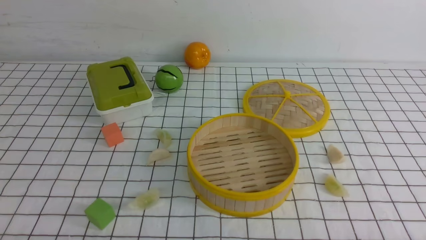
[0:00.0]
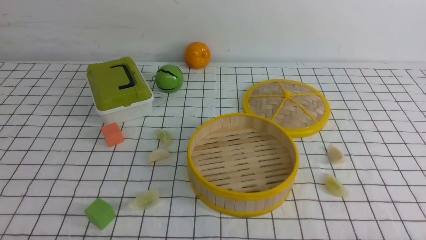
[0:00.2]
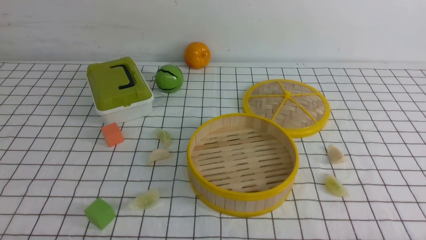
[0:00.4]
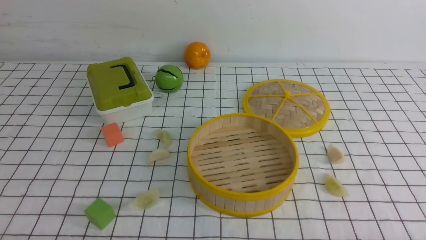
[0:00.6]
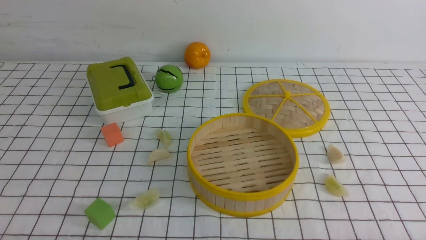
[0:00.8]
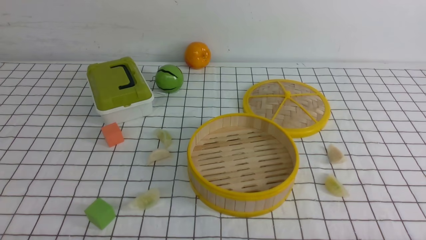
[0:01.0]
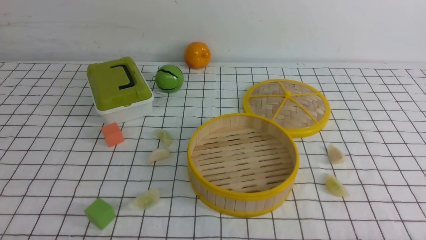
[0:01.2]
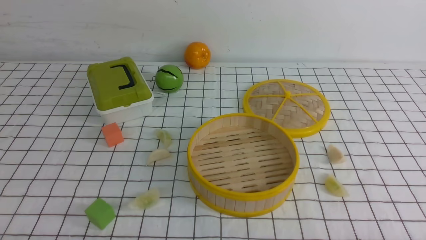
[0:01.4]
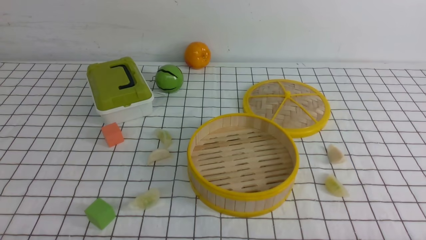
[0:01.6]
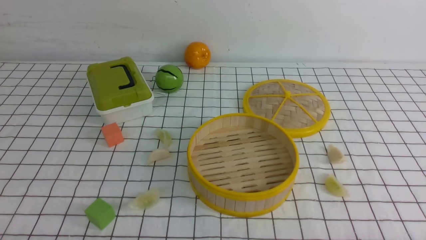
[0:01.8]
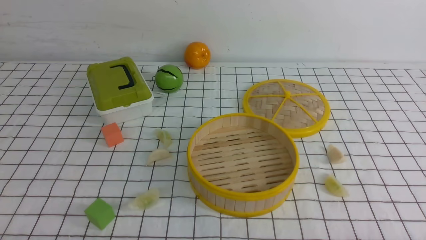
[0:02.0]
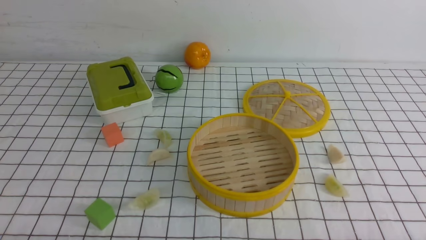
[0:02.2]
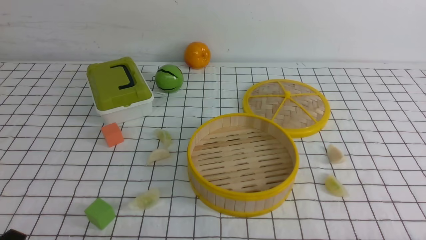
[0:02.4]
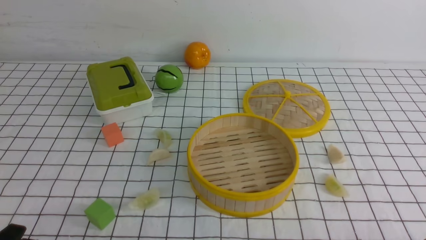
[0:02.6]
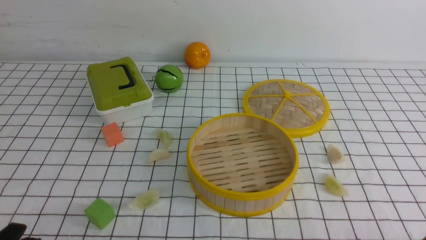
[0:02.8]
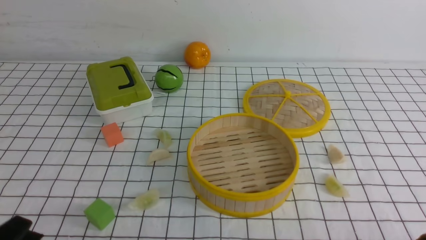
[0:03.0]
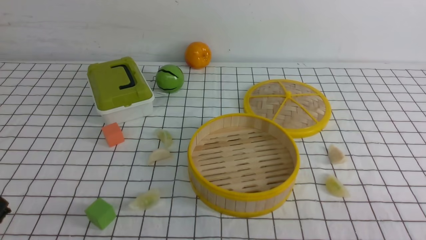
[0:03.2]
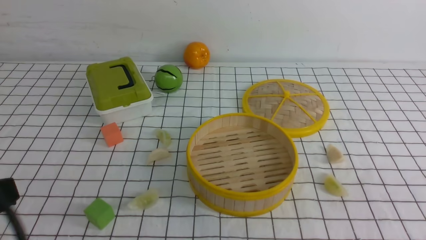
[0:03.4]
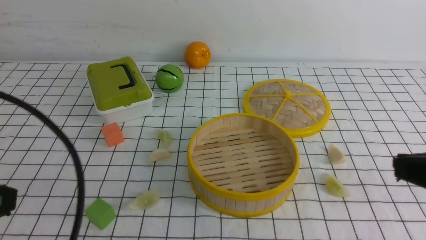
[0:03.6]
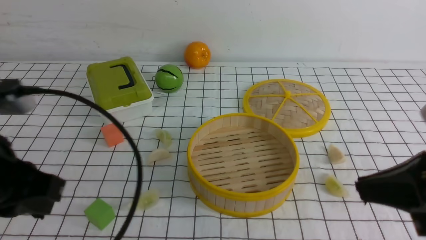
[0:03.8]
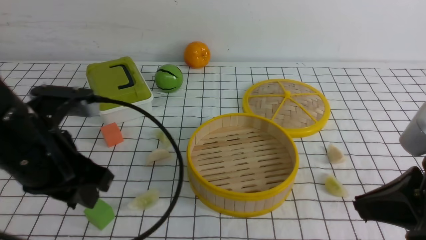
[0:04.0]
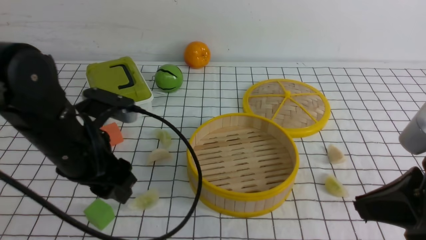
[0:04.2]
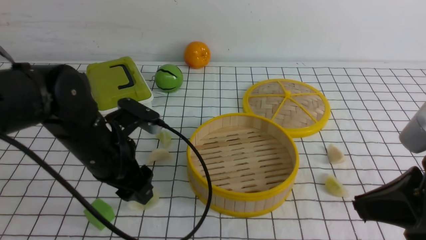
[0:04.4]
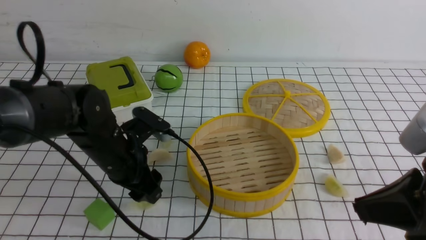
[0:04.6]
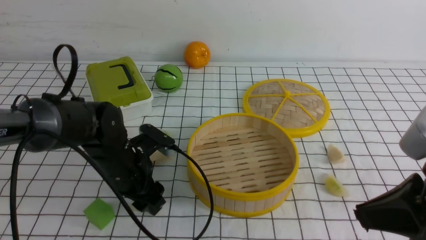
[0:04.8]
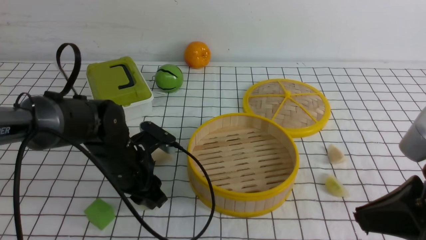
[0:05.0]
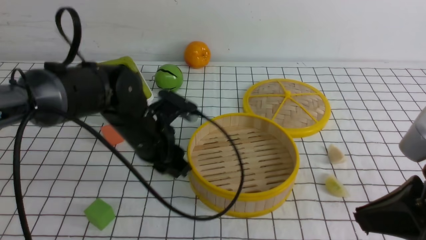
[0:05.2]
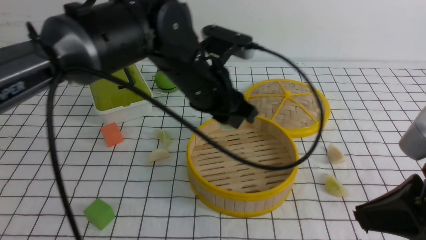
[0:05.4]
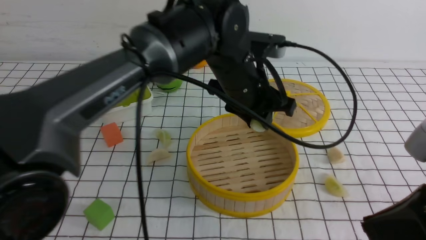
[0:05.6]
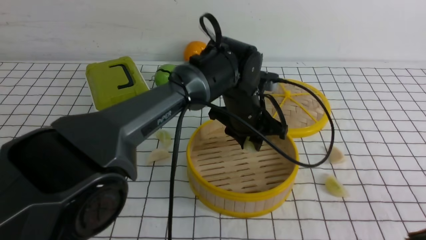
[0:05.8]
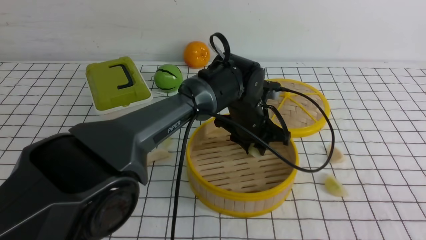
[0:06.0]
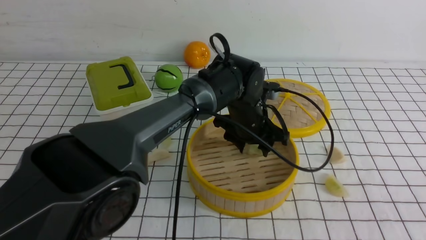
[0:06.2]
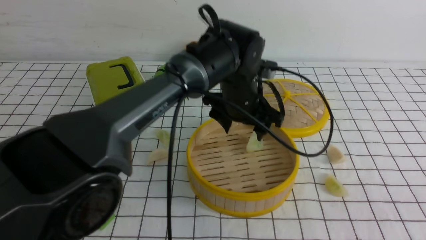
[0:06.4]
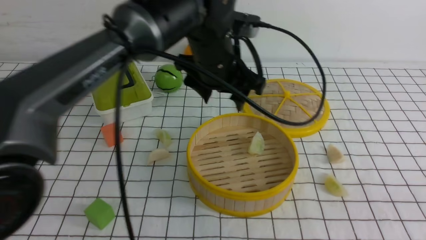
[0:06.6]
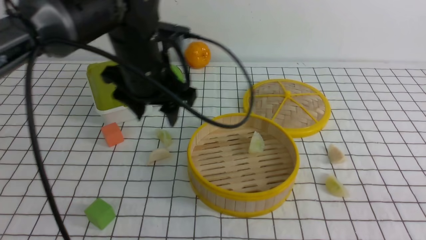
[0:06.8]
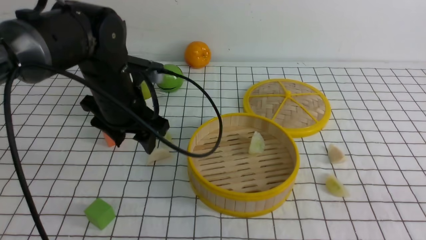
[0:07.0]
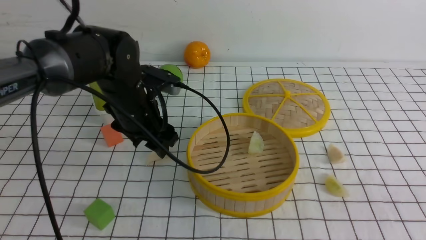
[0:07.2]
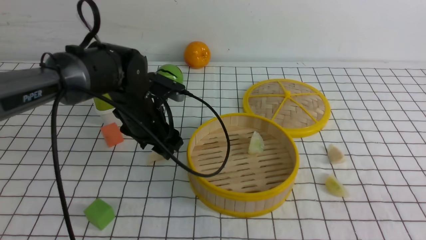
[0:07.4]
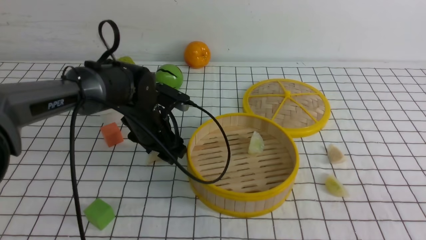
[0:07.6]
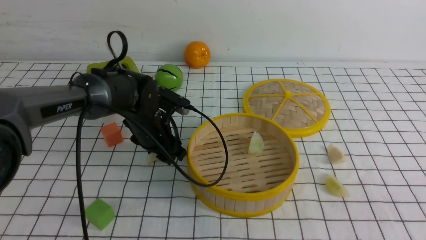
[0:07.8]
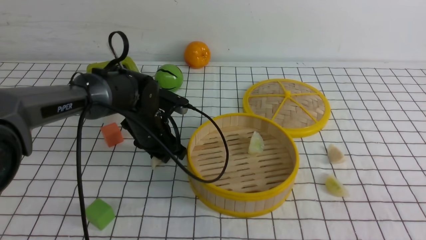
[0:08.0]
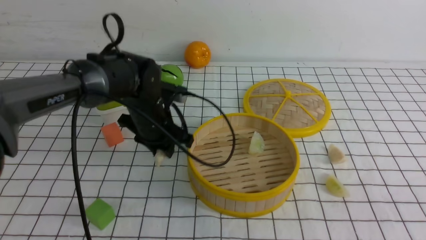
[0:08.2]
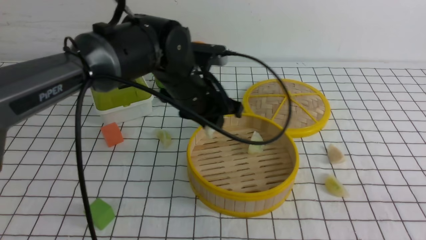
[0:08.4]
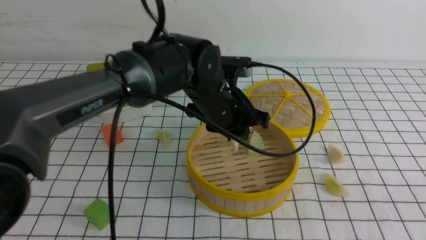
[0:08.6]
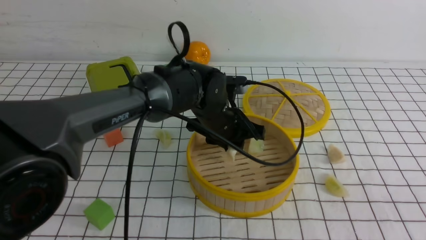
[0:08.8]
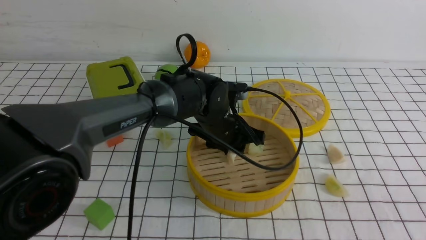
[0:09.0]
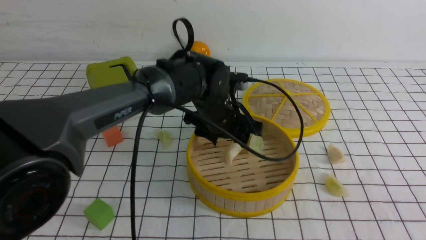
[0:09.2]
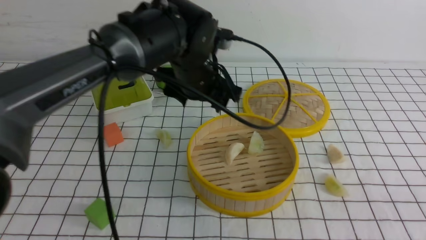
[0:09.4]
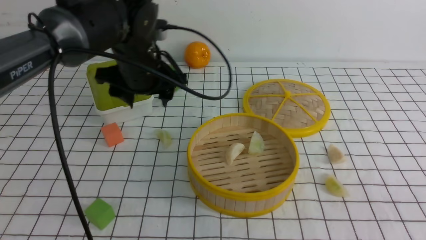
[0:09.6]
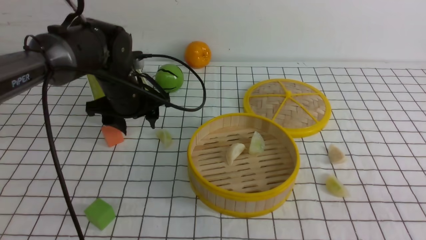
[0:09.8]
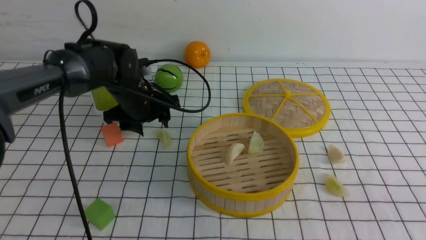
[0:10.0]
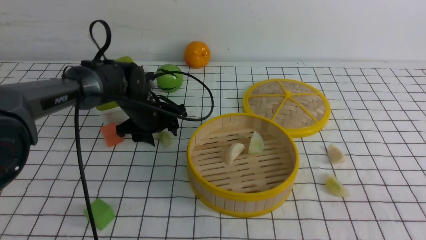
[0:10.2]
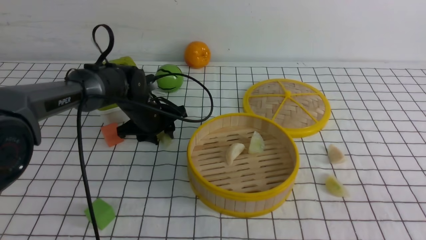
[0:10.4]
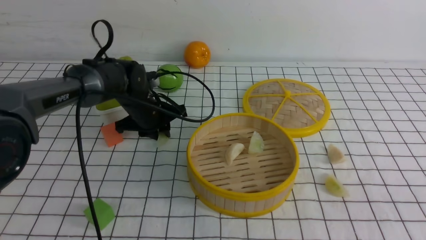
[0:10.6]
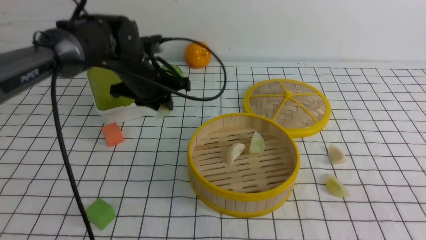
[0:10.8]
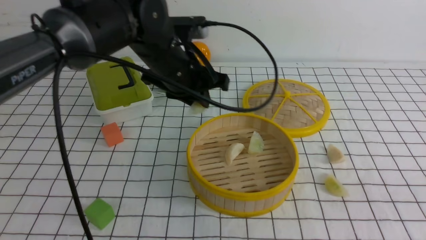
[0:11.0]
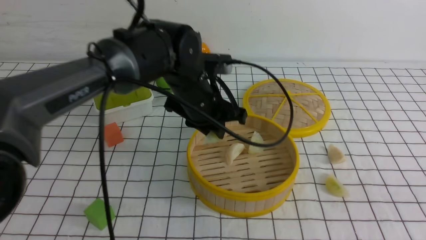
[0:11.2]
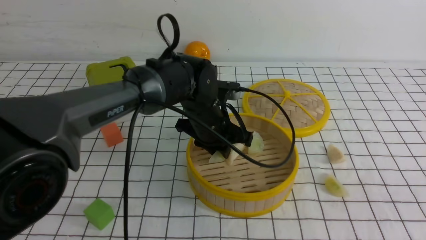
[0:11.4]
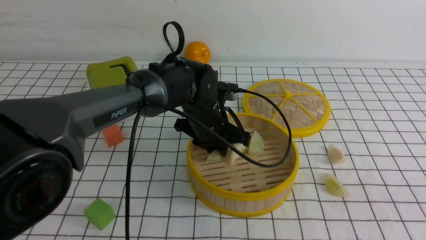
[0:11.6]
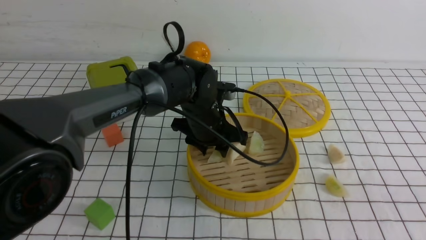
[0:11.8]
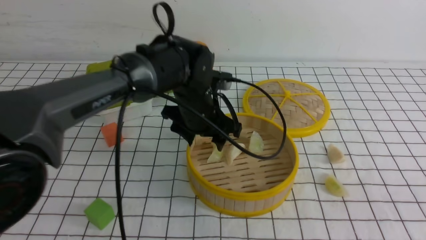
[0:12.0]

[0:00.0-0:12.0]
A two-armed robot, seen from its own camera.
Task of the whole recording: put the dumplings into the steamer on the table with the white tablecloth.
Step, 0.0 to 5.2 s: use the left arm to grab a dumpling.
Step, 5.6 to 6.4 s: use the left arm to put the dumpling into the steamer.
Step, 6.6 to 8.4 s: use the left arm to grab a dumpling.
Step, 8.6 to 9.2 s: use the left arm to put the dumpling into the steamer.
Step, 9.6 to 11.2 s: use the left arm to grab a dumpling.
3.0 to 4.4 s: The left gripper goes roughly 25 cm forward, and opens its fingers, while the right gripper moves upward, forward and to the left, roughly 15 cm, and closes.
4.4 to 6.0 s: The right gripper travels backward by some 5 cm. Meanwhile the left gripper heads to the right and forward, covering approximately 25 cm, and closes up.
6.0 to 7.6 s: The left gripper shifts approximately 15 cm to the left, and opens up.
7.6 to 9.0 s: The left gripper moves to the right, about 15 cm, and closes up.
9.0 to 10.4 s: The left gripper is displaced to the left and forward by roughly 15 cm.
10.4 to 12.0 s: The left gripper shifts some 15 cm to the right, upward and backward, and closes and opens again.

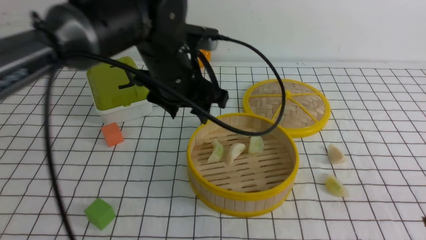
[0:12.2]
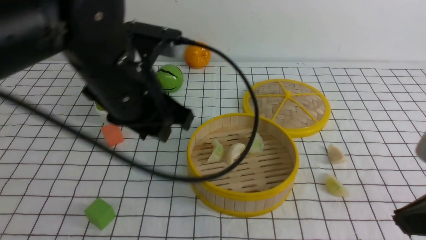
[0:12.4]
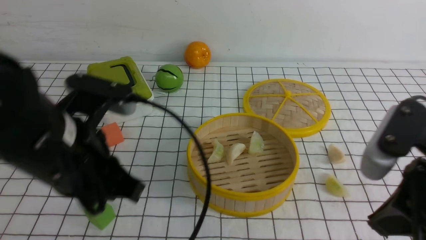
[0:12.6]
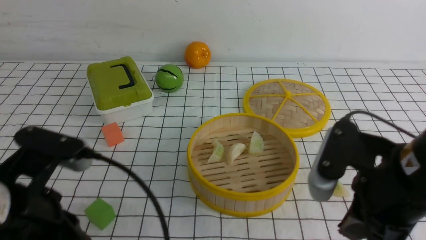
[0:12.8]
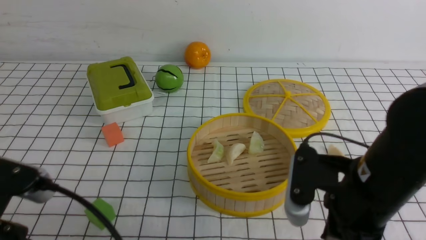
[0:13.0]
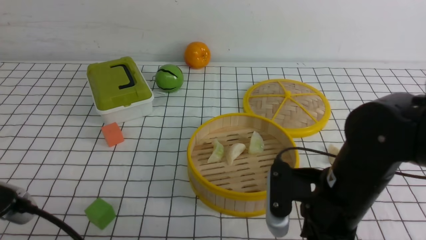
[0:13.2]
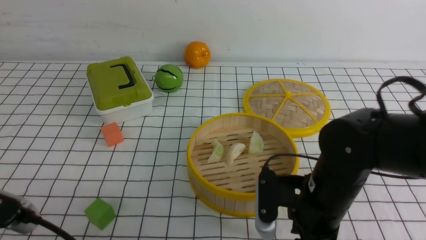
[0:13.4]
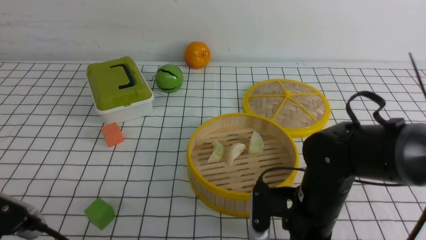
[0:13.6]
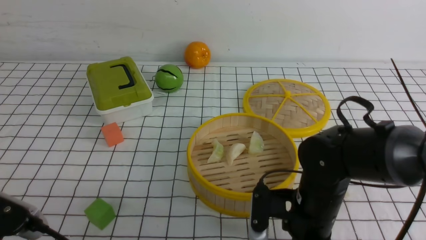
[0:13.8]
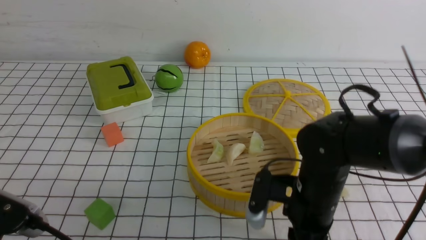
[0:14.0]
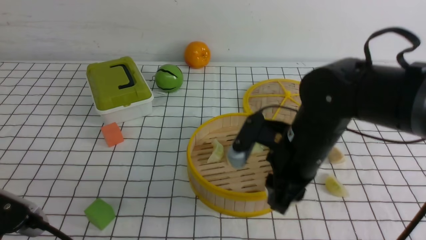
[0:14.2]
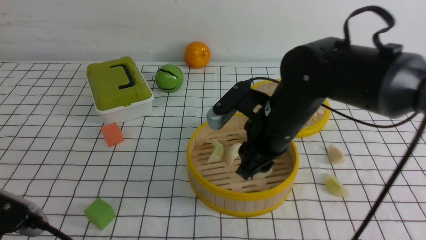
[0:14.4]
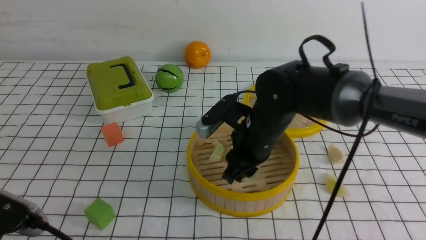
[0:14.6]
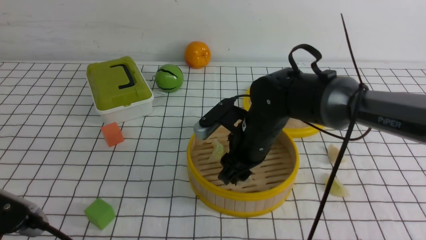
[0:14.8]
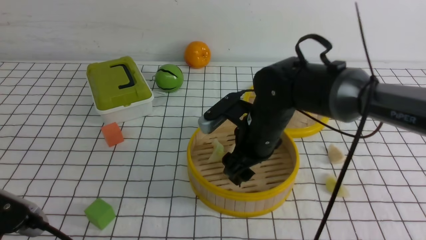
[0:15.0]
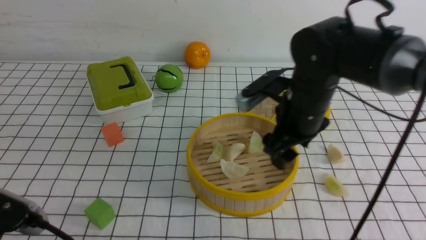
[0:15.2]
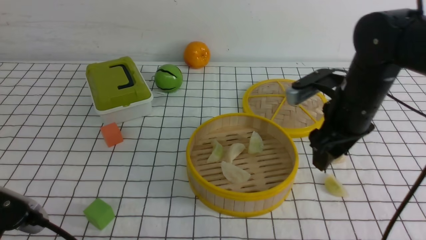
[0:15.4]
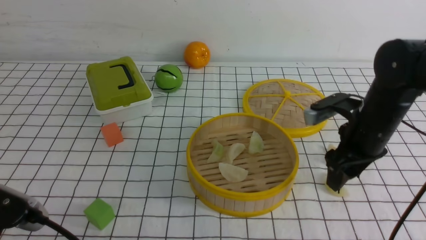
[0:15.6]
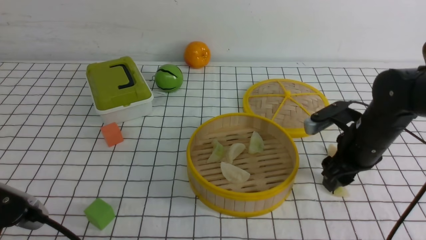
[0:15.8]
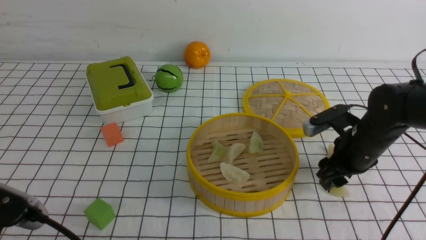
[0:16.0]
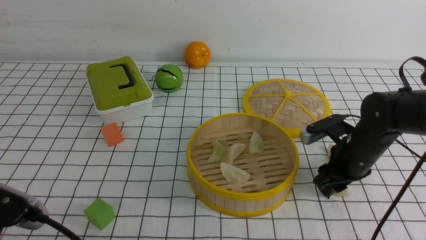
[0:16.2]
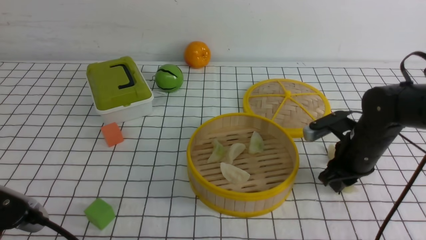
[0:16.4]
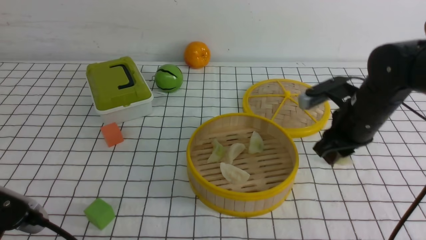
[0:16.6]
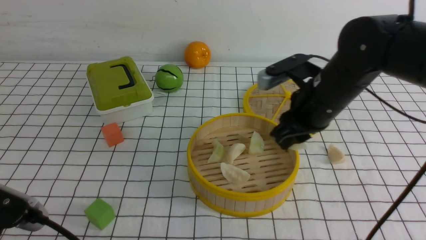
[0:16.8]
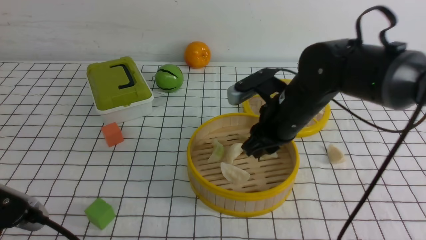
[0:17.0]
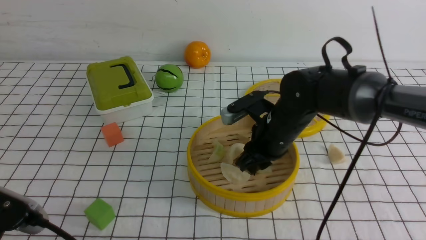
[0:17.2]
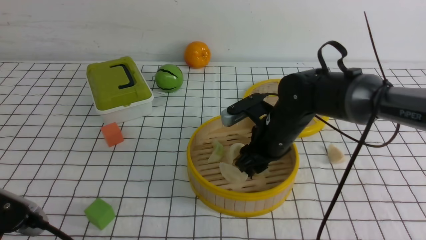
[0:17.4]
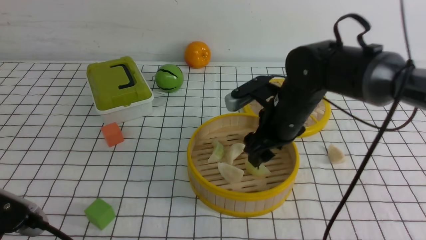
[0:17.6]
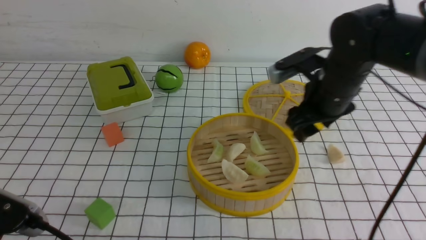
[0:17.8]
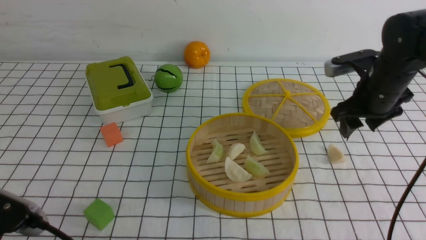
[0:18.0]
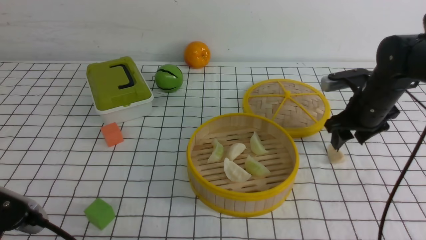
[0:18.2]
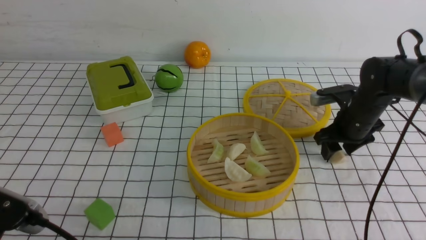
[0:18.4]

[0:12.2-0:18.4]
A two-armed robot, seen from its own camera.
Task of the whole recording: put the dumplings into the steamer on the table with the white tablecloth.
Step, 12.4 to 14.4 s: use the right arm to grab a dumpling.
Step, 14.6 to 15.6 s: use the right arm to put the dumpling into the steamer.
Step, 15.8 to 16.4 s: use the right arm to grab a dumpling.
Step, 16.6 to 17.8 s: use the right arm to put the dumpling into the steamer.
12.2 to 13.8 s: The left gripper travels backward and to the left by roughly 30 cm, and closes its fingers. Meanwhile the right gripper shifts some 25 cm downward, forward and to the left, and opens up.
13.8 to 15.4 s: The right gripper travels forward and upward by some 15 cm, and opens its fingers.
15.4 to 16.8 s: The right gripper moves some 10 cm downward and comes back, and closes its fingers.
16.8 to 18.4 s: The right gripper goes roughly 15 cm to the right, forward and downward, and opens.
